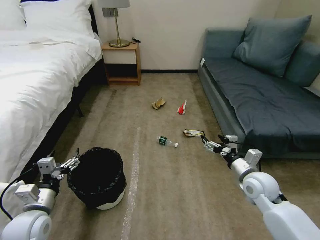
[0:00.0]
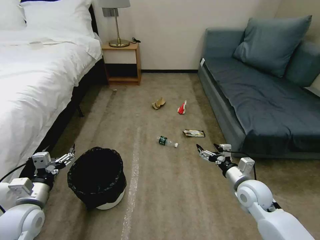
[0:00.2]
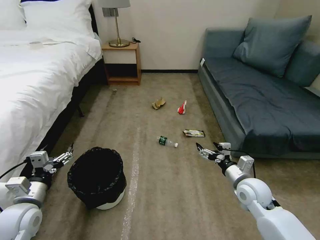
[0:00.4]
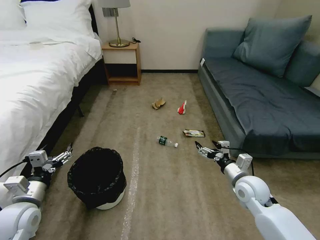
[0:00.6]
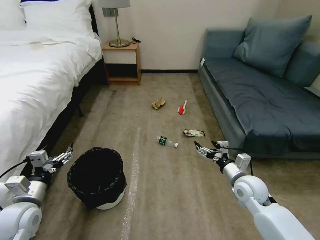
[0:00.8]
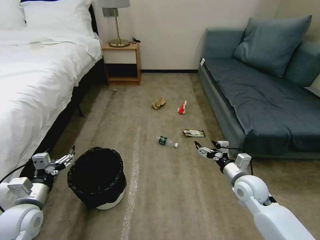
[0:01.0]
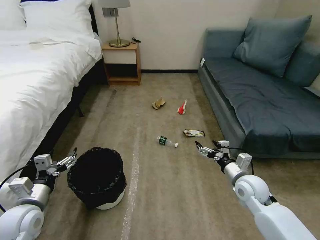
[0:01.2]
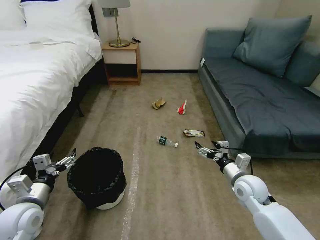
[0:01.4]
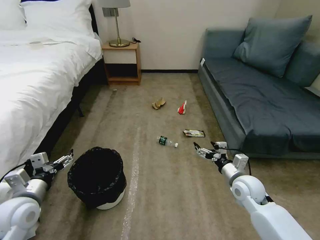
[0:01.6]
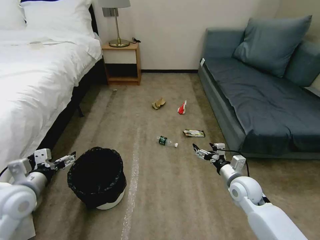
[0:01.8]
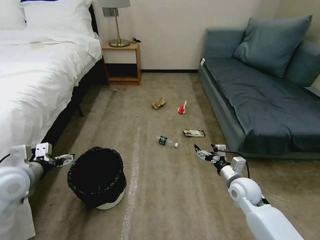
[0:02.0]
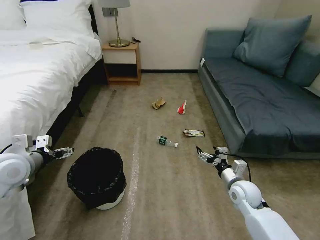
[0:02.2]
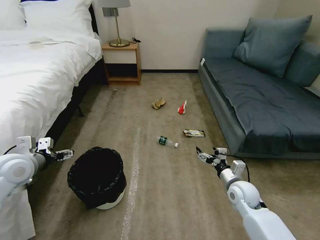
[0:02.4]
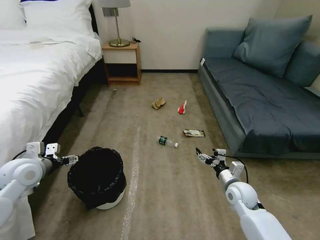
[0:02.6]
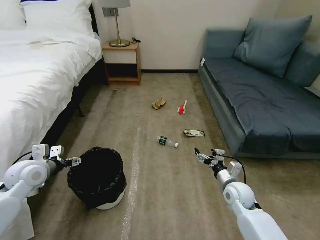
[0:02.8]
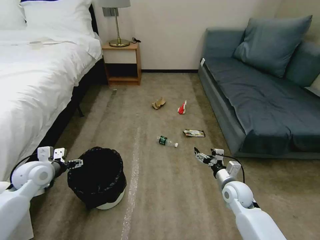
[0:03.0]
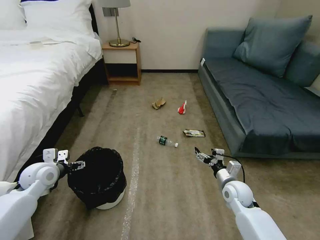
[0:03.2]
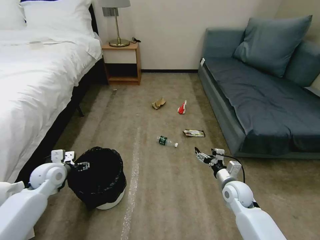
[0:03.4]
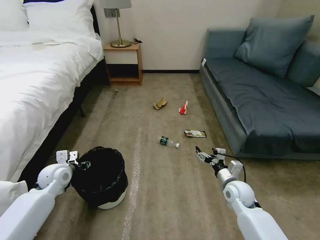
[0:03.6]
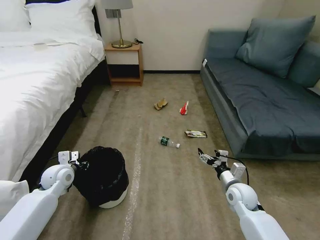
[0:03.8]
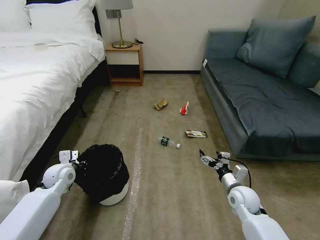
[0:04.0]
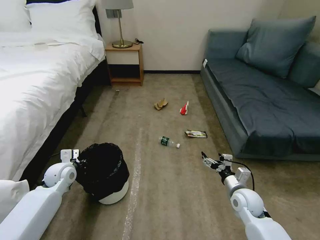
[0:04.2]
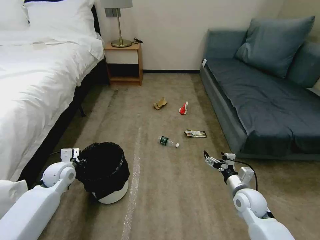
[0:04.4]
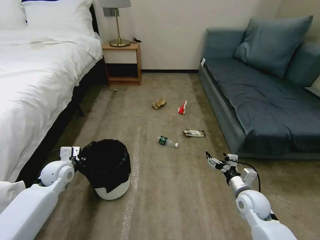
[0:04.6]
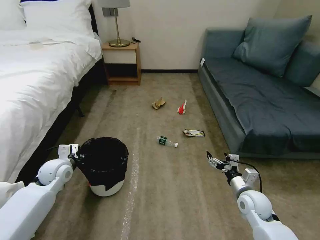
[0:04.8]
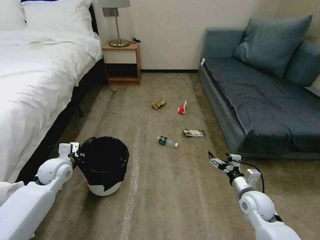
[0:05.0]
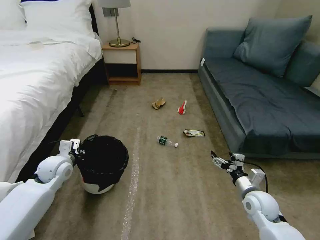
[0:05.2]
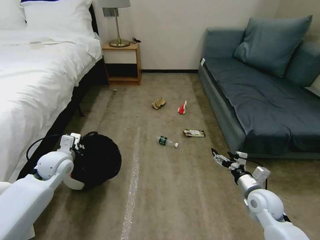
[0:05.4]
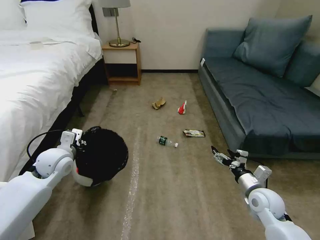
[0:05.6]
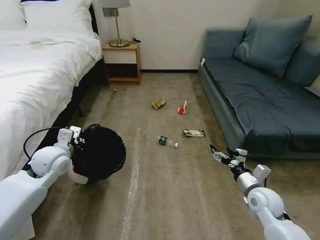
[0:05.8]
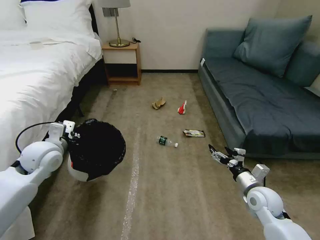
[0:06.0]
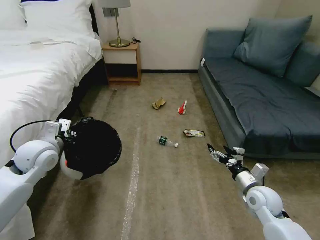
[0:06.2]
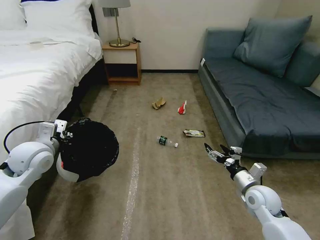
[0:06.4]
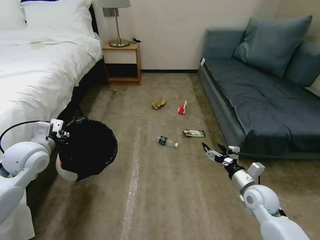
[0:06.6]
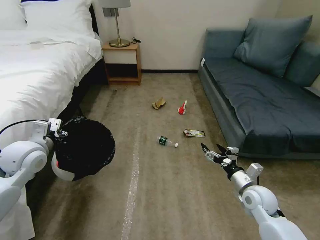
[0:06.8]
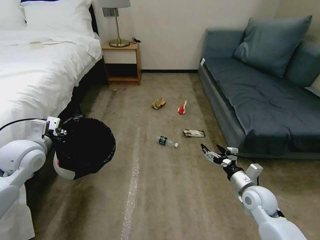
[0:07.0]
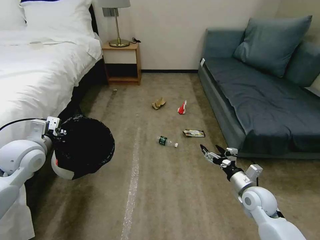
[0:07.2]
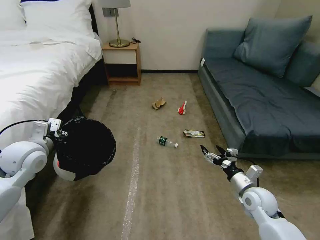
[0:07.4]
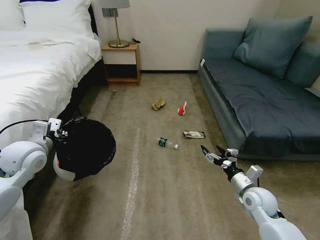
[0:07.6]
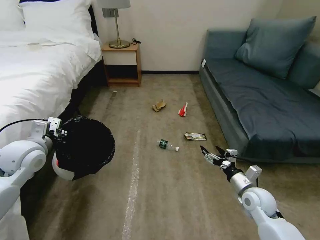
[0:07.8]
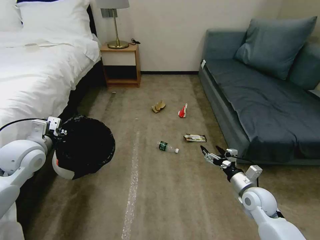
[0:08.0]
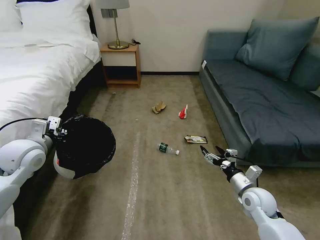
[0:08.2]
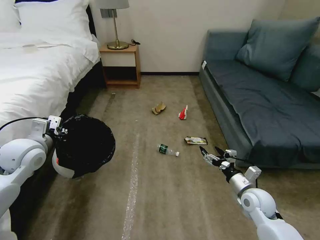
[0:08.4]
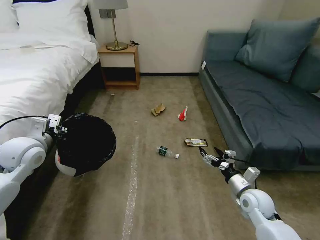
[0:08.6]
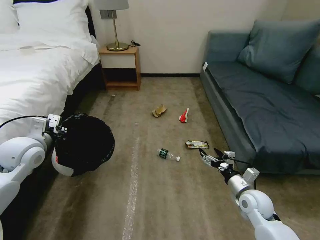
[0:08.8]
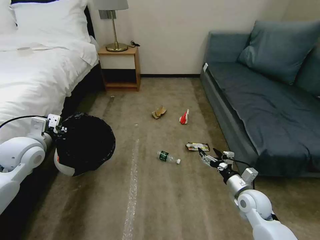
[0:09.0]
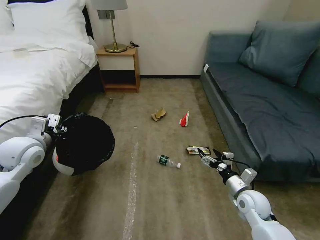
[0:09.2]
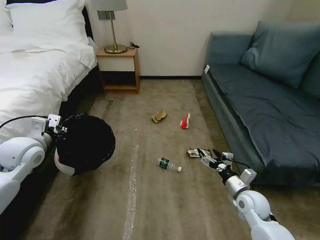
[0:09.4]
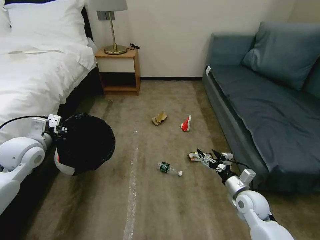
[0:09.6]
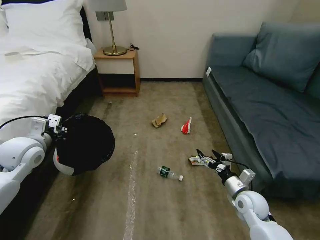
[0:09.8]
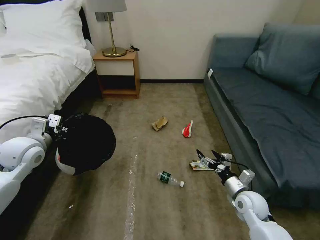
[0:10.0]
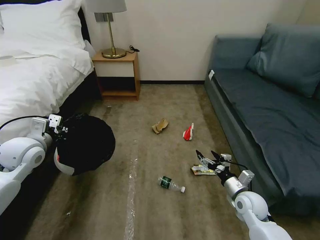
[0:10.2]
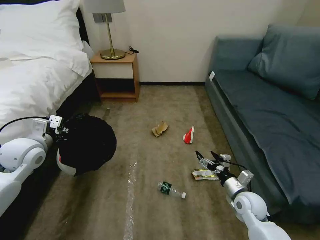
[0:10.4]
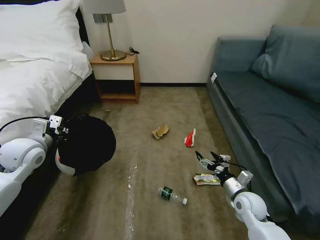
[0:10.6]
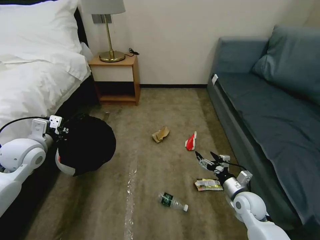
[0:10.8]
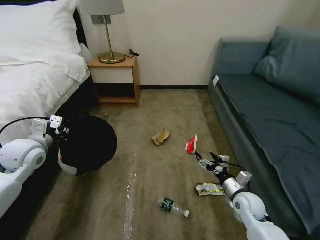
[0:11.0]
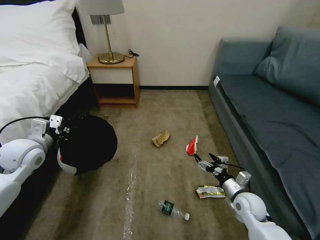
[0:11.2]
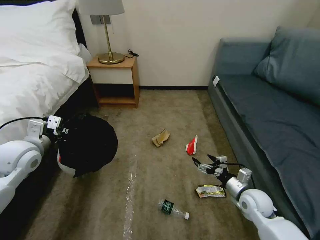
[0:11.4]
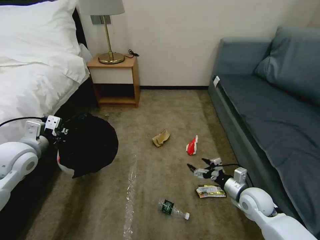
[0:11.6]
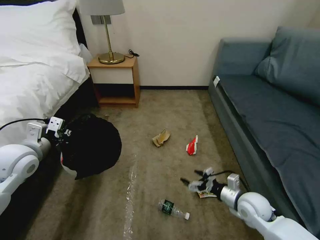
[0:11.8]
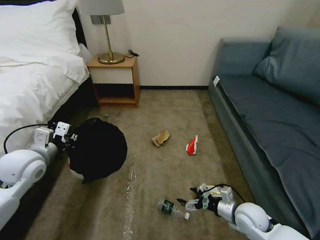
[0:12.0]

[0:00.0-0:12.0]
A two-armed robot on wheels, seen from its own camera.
Task of the whole recording: Pick up the trash bin, then pick up the garbage on the floor and place it into the trash bin.
0:01.6 to 0:03.0: The left gripper shifts approximately 10 cm forward; the right gripper shifts roughly 5 cm downward.
0:03.0 to 0:04.4: The left gripper moves downward, roughly 5 cm, and closes.
0:04.4 to 0:06.0: The left gripper goes approximately 15 cm upward.
0:06.0 to 0:07.6: The grippers move only a little.

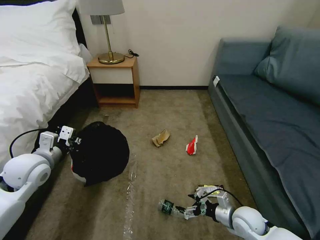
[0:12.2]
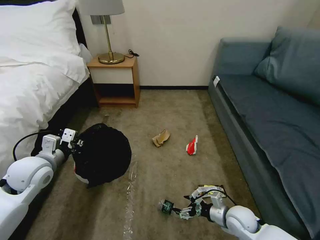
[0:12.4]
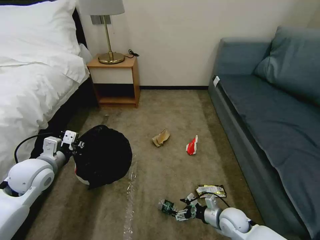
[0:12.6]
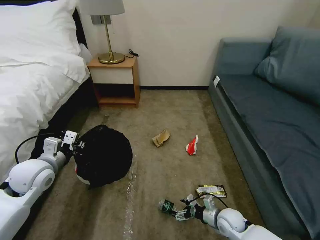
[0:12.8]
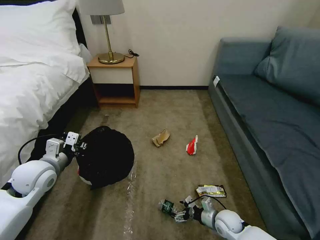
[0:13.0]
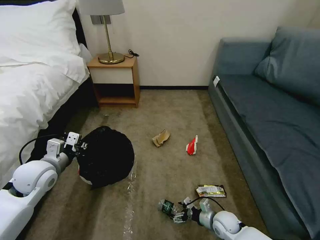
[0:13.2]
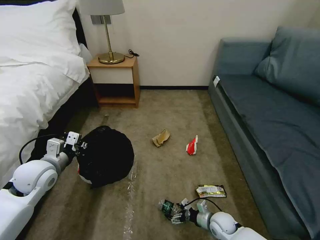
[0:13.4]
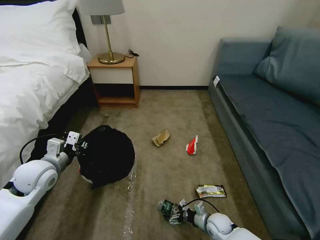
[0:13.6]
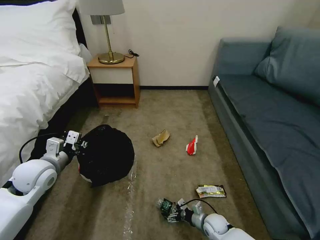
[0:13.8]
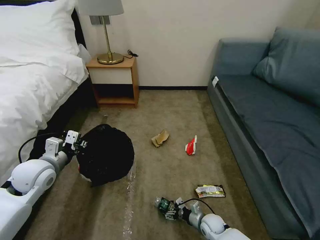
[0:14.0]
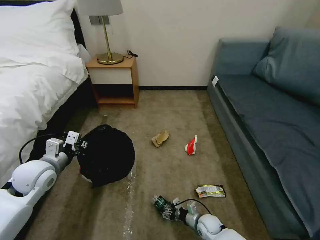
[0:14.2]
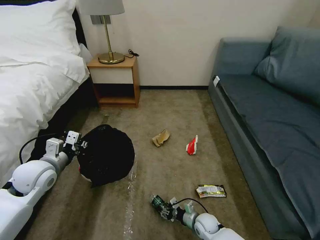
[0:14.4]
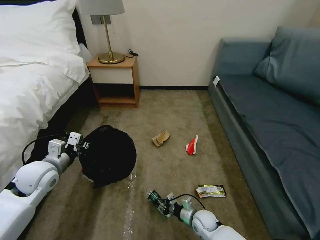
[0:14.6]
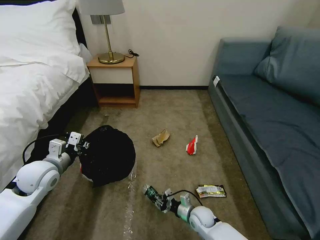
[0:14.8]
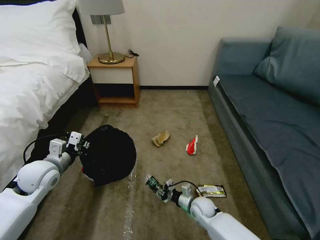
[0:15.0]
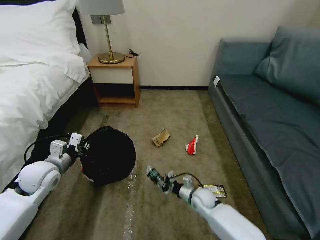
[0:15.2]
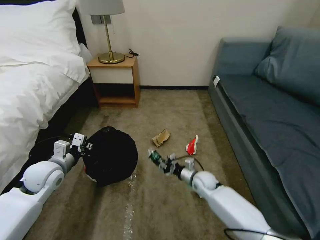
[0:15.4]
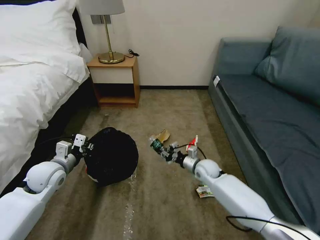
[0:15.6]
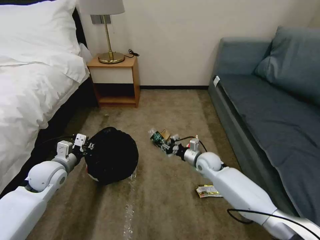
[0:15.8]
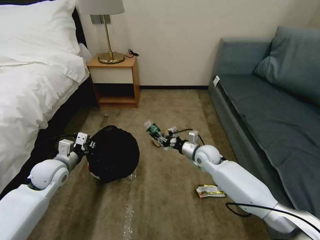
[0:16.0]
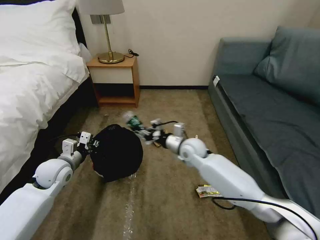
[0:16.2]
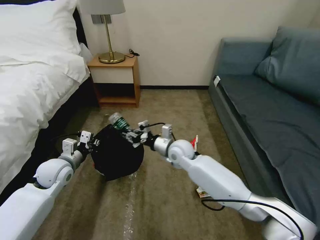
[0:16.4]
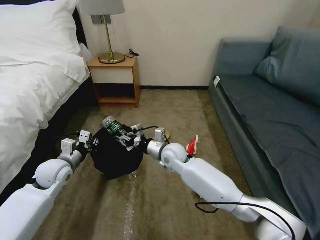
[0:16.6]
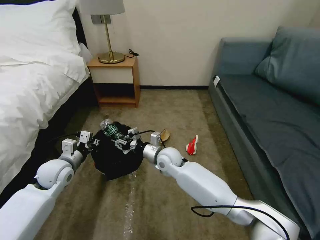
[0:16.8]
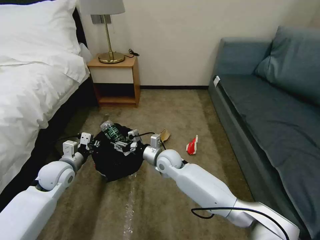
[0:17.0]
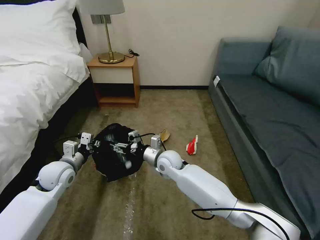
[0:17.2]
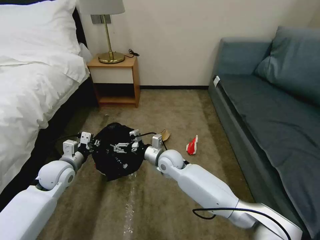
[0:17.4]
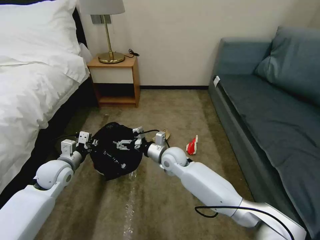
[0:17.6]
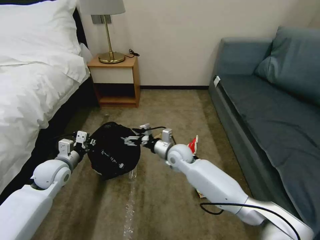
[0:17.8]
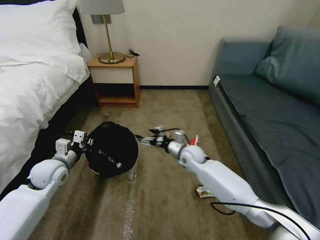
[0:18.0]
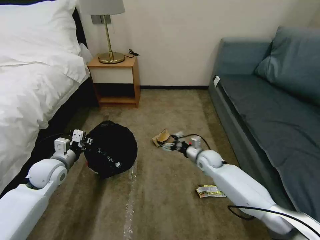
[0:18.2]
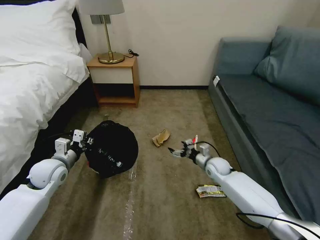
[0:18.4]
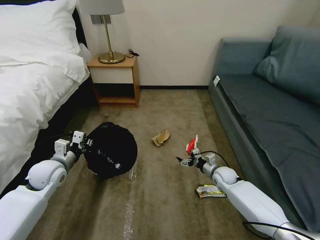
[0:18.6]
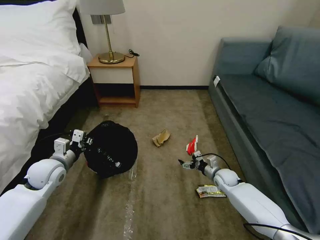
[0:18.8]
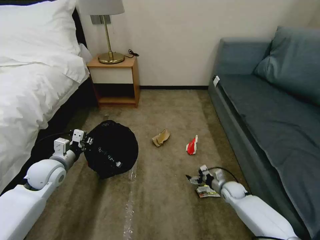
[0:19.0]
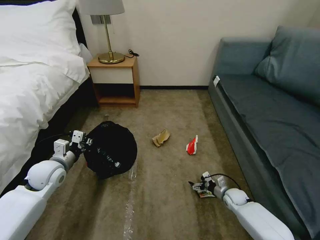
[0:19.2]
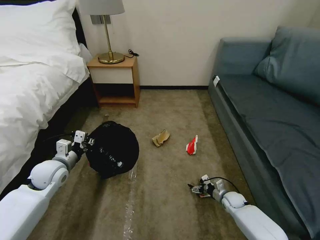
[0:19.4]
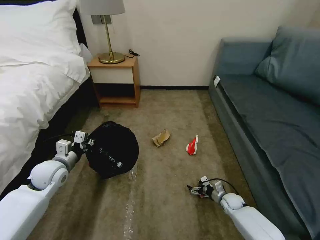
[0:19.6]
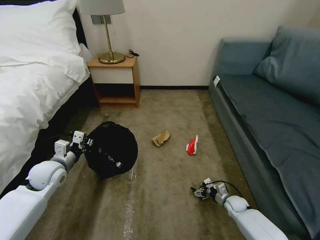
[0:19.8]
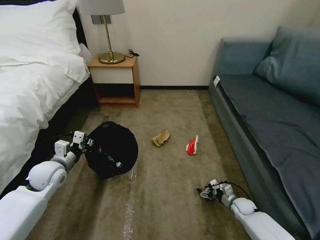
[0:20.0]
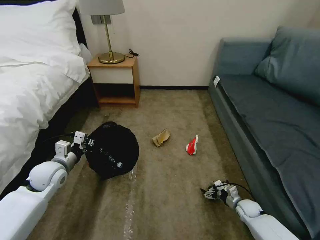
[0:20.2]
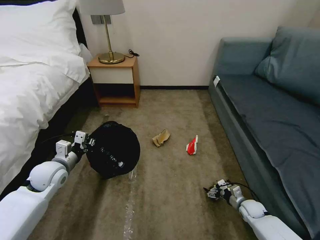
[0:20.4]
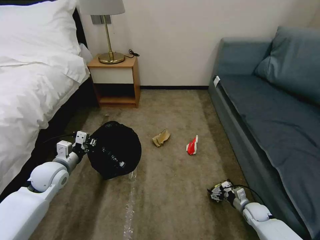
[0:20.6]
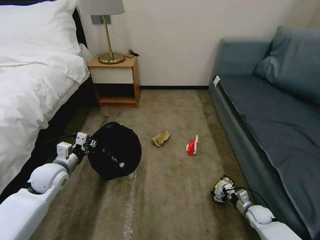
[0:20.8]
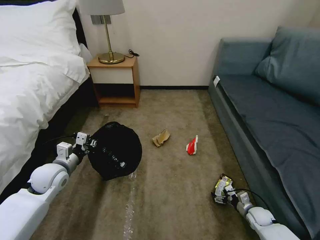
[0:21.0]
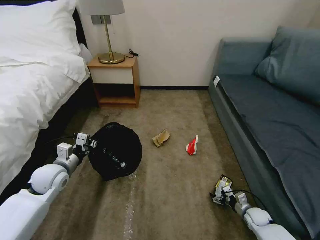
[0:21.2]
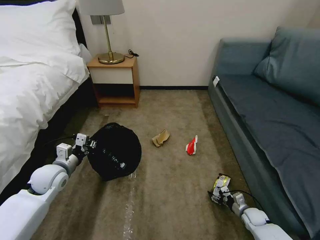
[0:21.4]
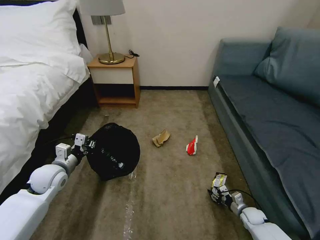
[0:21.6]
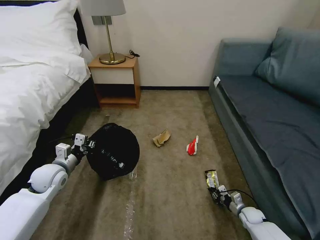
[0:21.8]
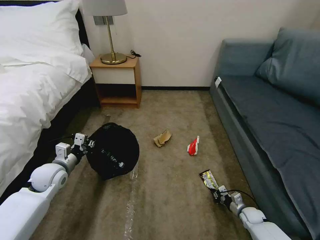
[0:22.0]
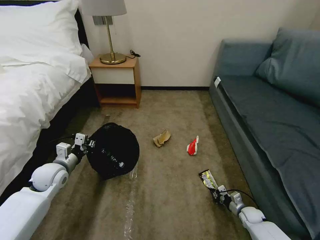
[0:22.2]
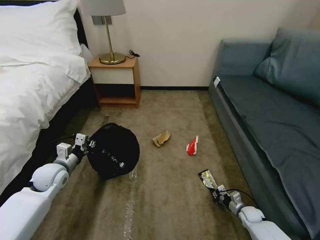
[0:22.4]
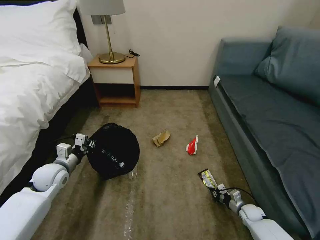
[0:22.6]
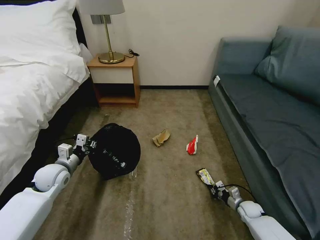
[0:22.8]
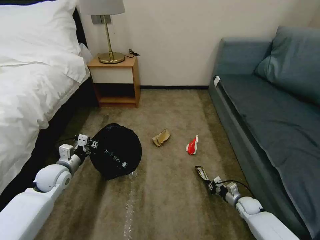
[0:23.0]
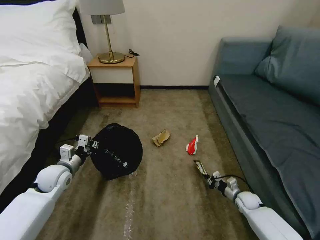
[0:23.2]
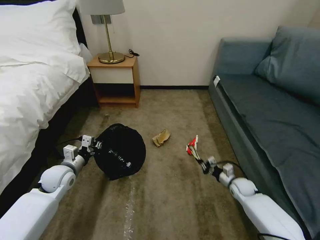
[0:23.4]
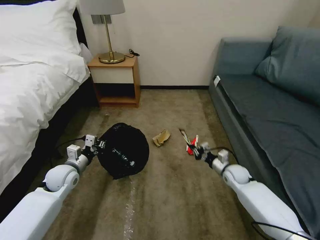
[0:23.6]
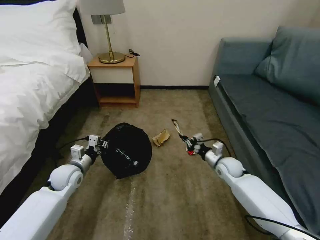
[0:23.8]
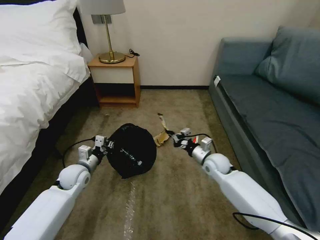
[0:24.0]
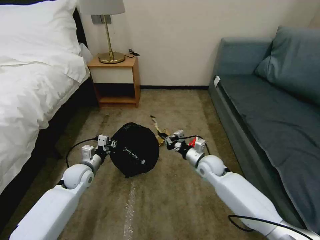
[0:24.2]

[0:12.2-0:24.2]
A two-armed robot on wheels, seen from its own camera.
Task of the whole recording: Pick up the trash bin, then pick up the garbage on the floor and place it into the trash bin.
0:12.2 to 0:13.8: The right gripper travels downward and to the left by approximately 15 cm.
0:13.8 to 0:15.2: The right gripper is displaced upward, forward and to the left by roughly 10 cm, and closes up.
0:15.2 to 0:16.6: The right gripper travels upward, to the left and forward by about 25 cm.
0:16.6 to 0:18.2: The right gripper moves to the right and downward, roughly 20 cm, and opens its fingers.
0:18.2 to 0:19.8: The right gripper goes some 25 cm downward, to the right and backward.
0:19.8 to 0:21.2: The right gripper is displaced to the right and backward by roughly 10 cm.
0:21.2 to 0:22.6: The right gripper closes.
0:22.6 to 0:24.2: The left gripper shifts about 5 cm to the right, while the right gripper travels to the left, upward and forward by some 35 cm.
